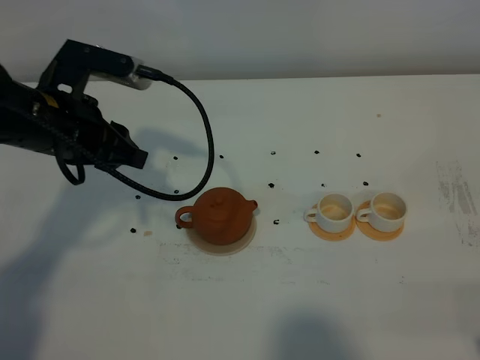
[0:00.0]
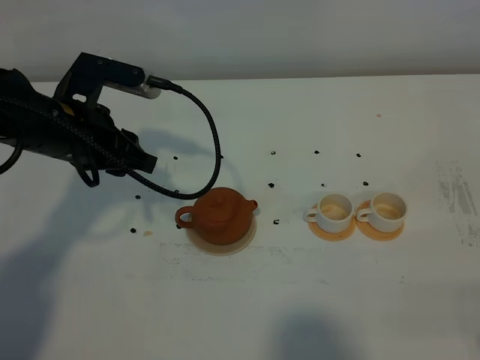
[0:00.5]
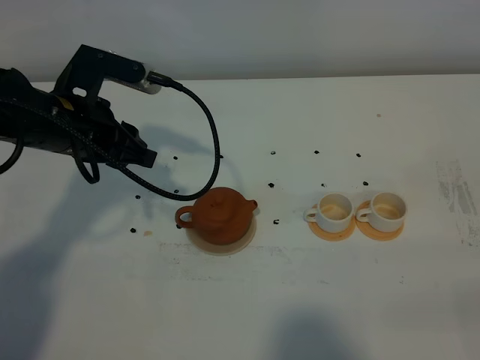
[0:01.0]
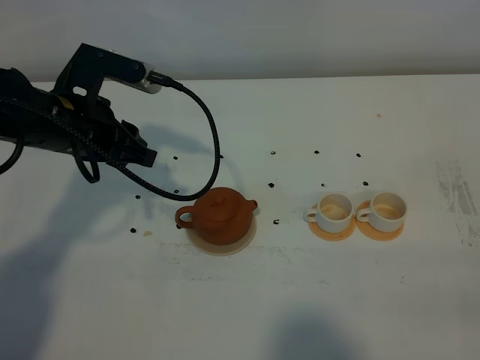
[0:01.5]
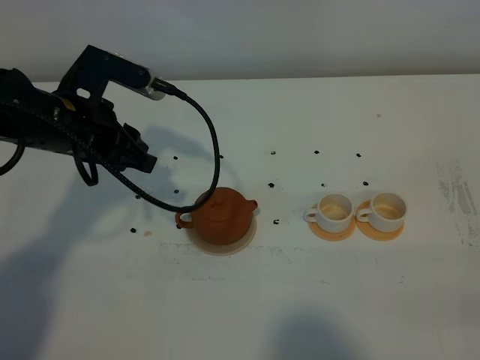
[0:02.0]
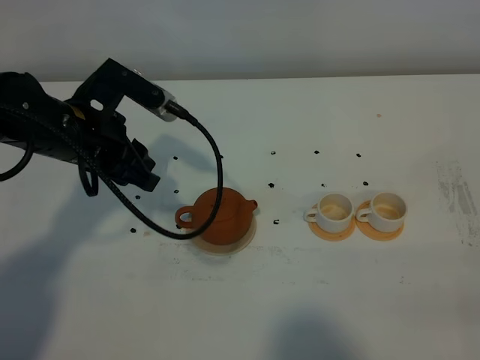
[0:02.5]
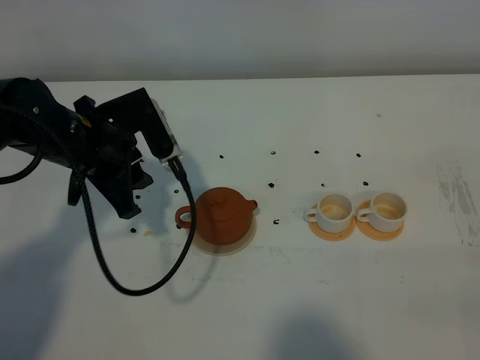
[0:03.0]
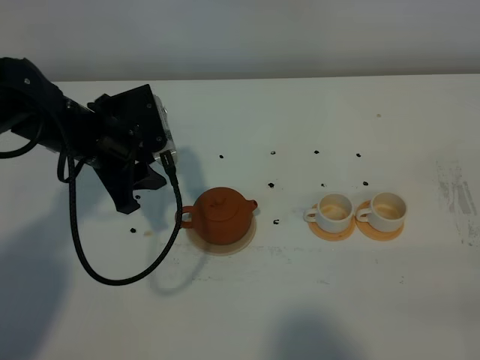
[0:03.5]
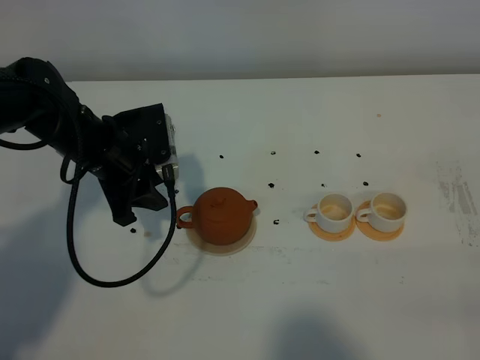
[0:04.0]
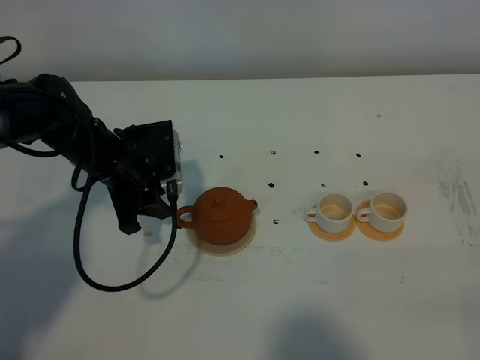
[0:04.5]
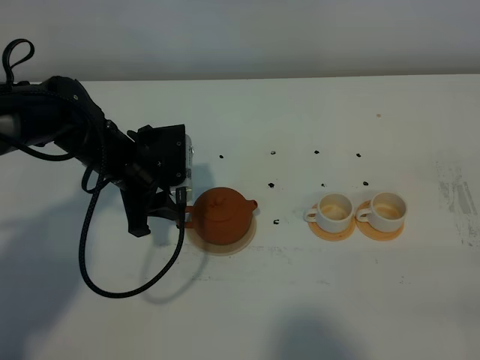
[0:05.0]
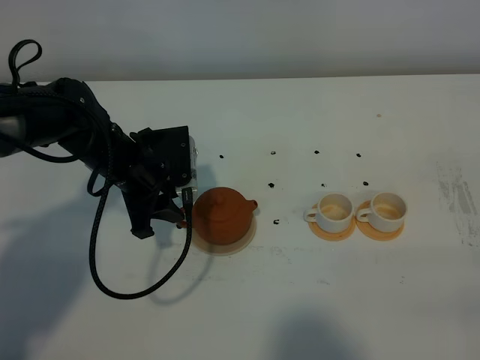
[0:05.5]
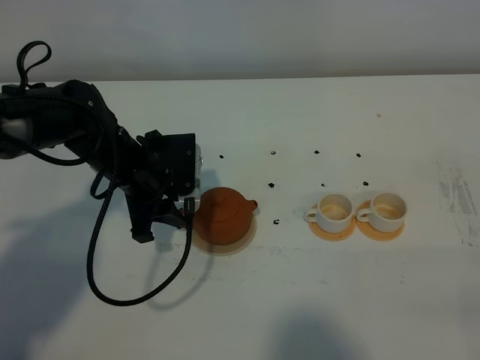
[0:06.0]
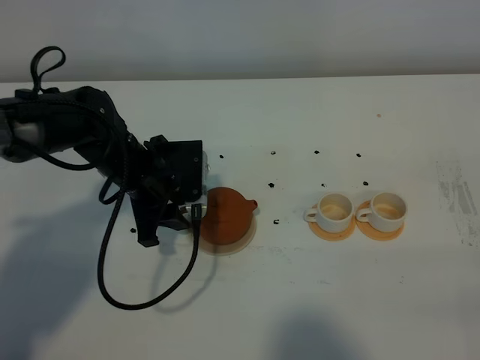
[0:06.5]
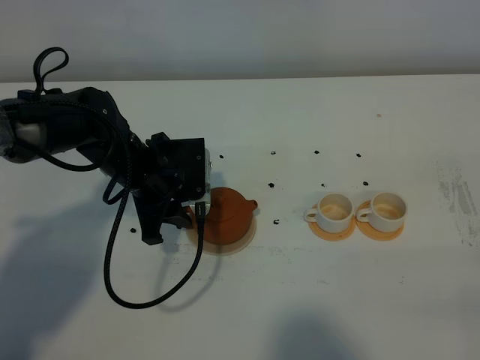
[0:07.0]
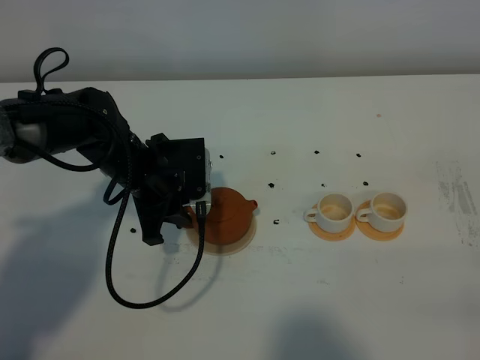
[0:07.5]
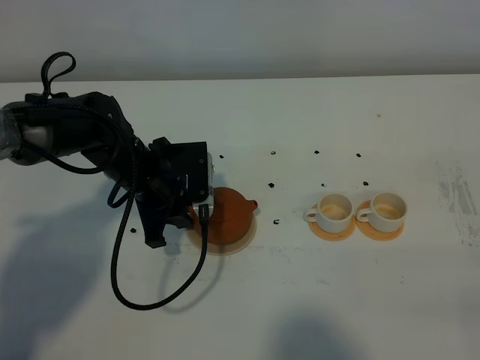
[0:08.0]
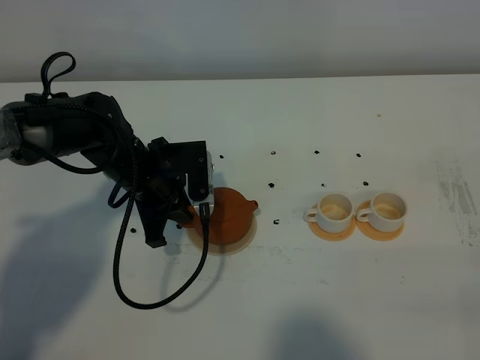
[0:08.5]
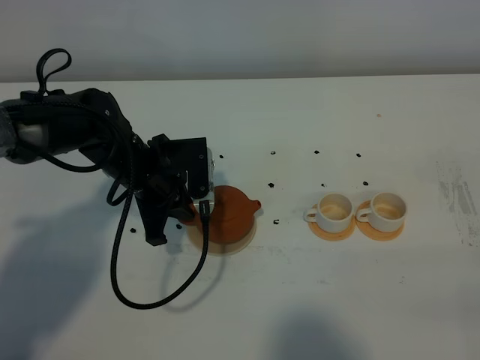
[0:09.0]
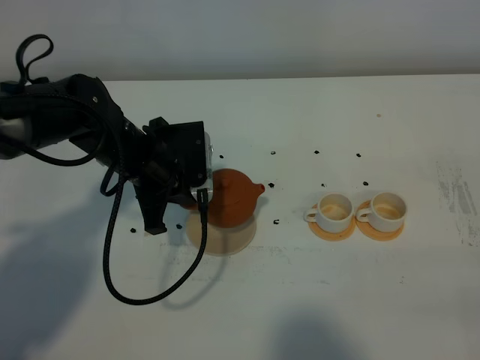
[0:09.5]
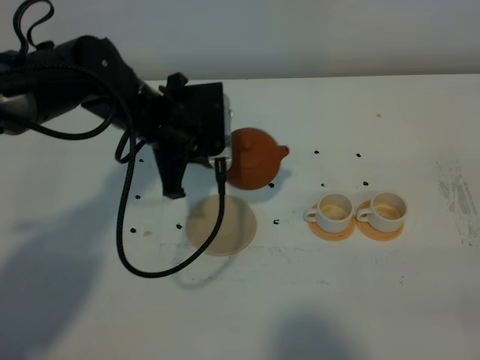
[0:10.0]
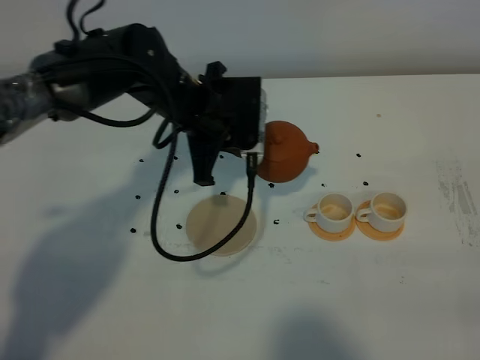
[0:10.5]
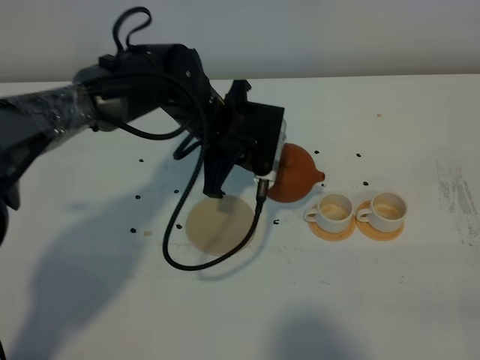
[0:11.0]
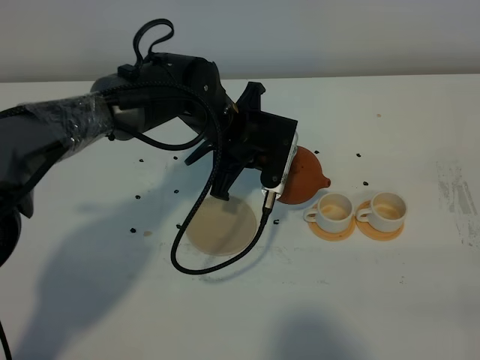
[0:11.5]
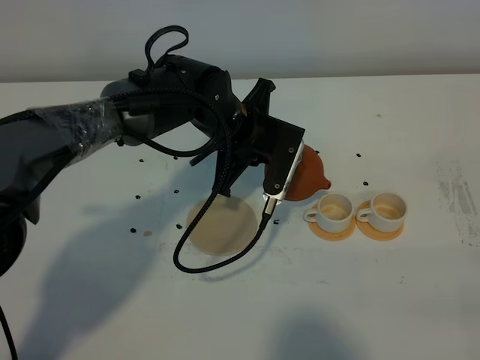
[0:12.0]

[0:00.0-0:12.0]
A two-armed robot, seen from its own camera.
Task of the whole recording: grasp the brown teapot and pour the tea into the two white teacups one by one, put the brown teapot back in its original place.
Step, 0:00.0 to 0:09.0: Pick up the teapot with the left gripper.
0:00.0 to 0:02.0: The right gripper closes its fingers.
0:02.0 to 0:04.0: The left gripper shifts roughly 5 cm downward.
0:04.0 to 0:06.0: There are only small adjustments of the grippers.
0:06.0 to 0:08.0: The left gripper closes up.
0:08.0 to 0:10.0: The left gripper moves upward, roughly 10 cm, and closes up.
0:10.0 to 0:12.0: The left gripper goes some 10 cm to the right.

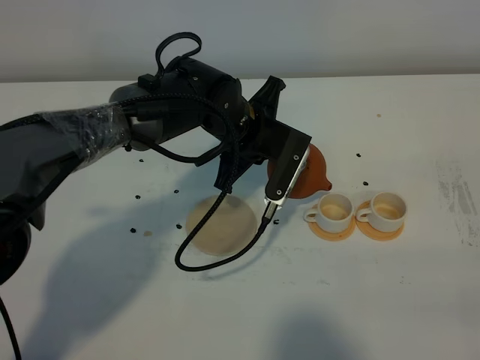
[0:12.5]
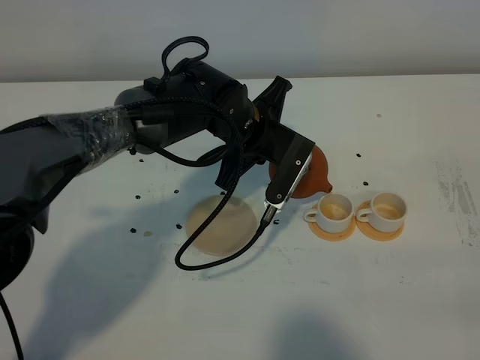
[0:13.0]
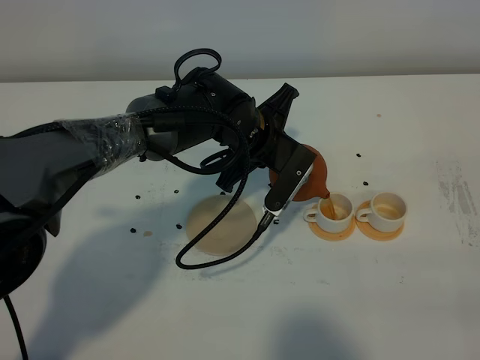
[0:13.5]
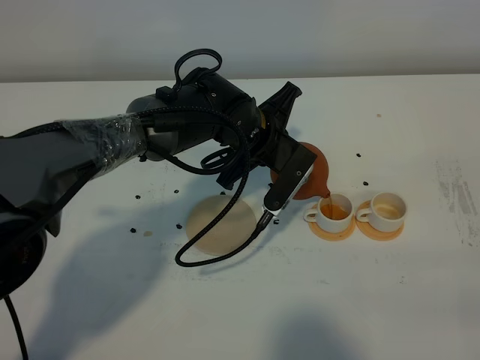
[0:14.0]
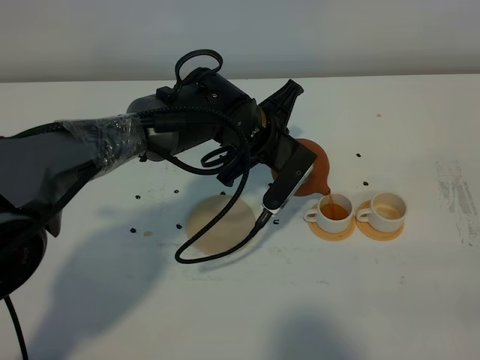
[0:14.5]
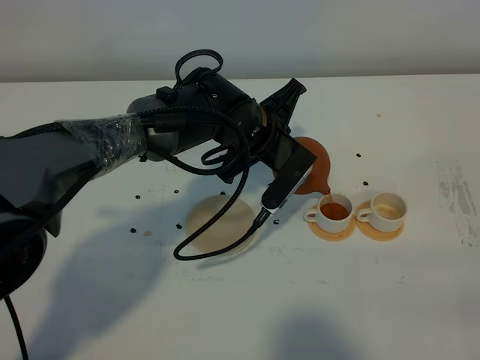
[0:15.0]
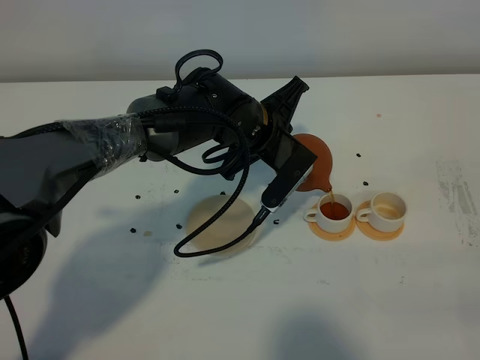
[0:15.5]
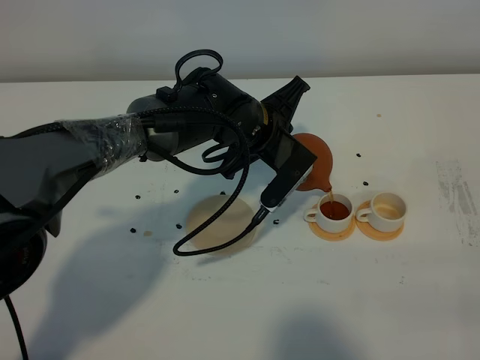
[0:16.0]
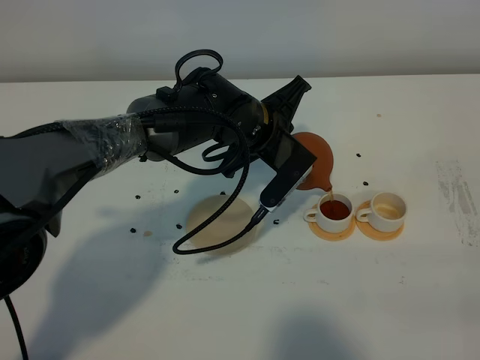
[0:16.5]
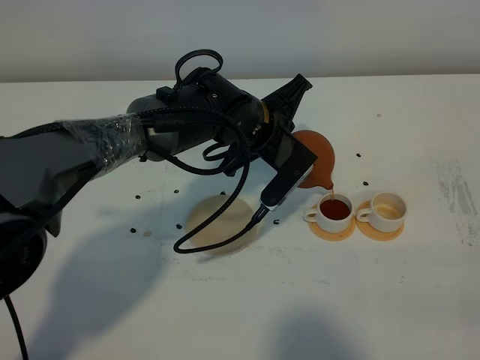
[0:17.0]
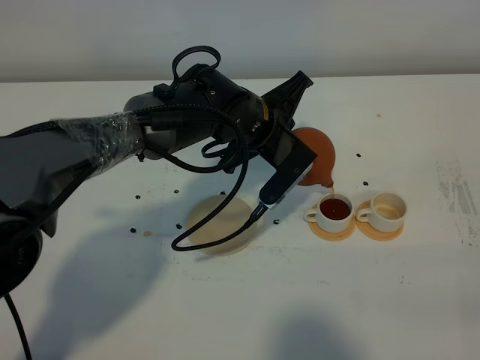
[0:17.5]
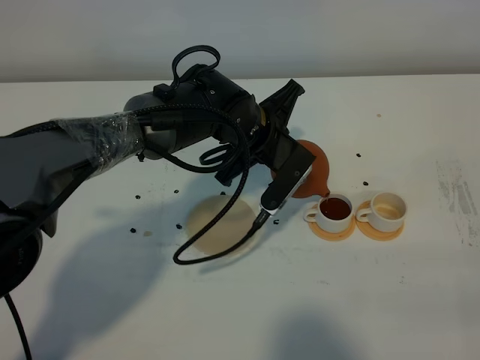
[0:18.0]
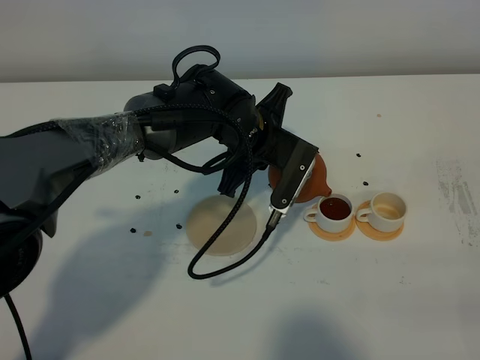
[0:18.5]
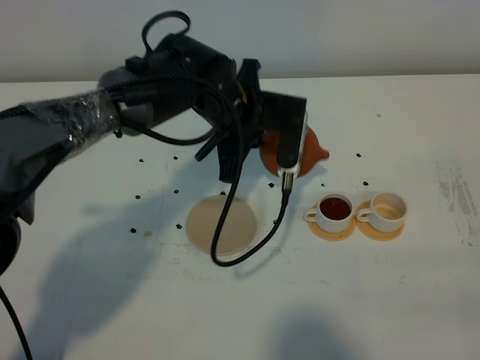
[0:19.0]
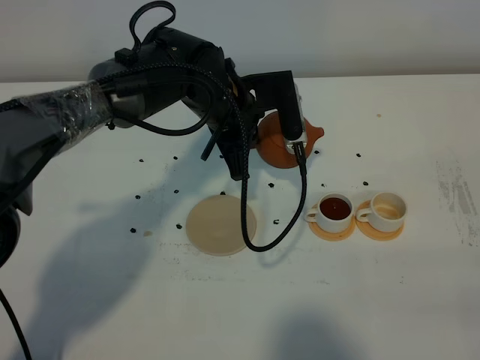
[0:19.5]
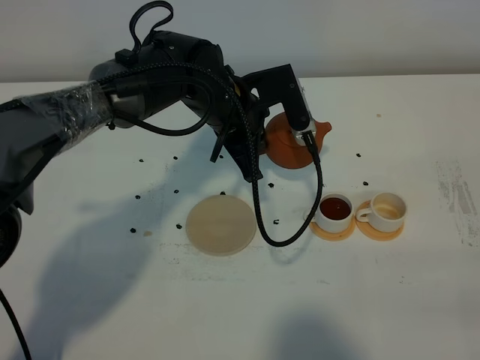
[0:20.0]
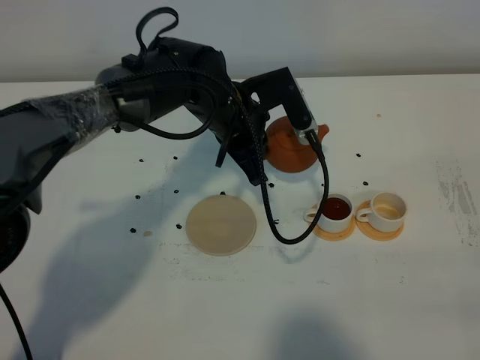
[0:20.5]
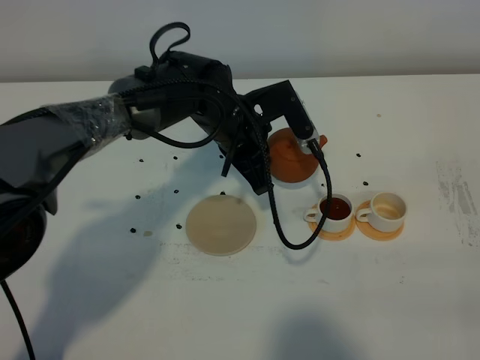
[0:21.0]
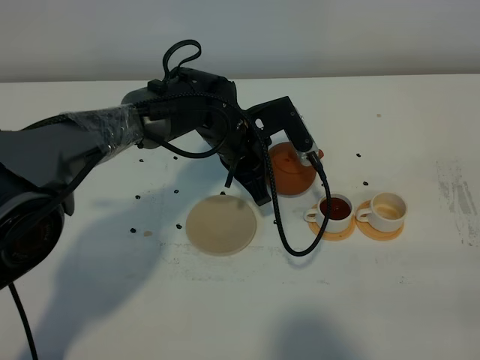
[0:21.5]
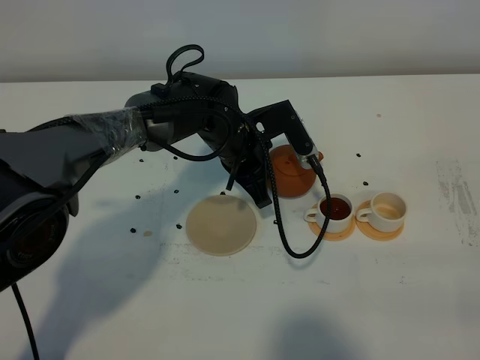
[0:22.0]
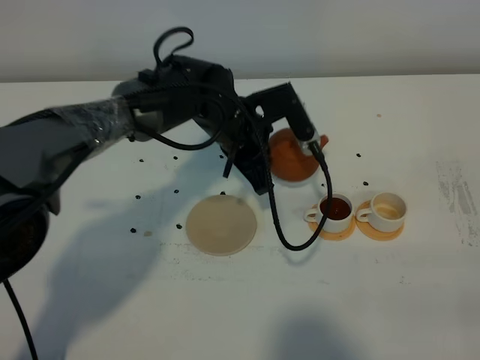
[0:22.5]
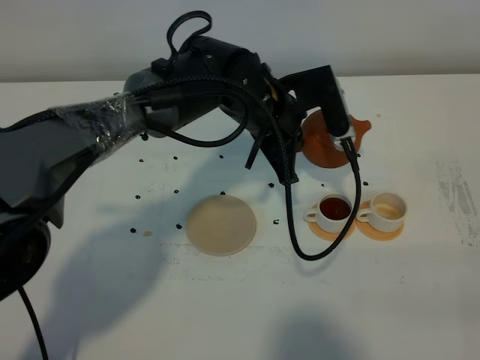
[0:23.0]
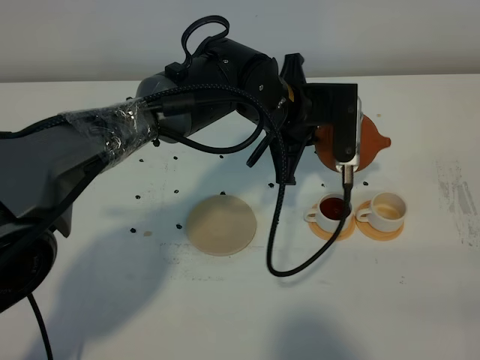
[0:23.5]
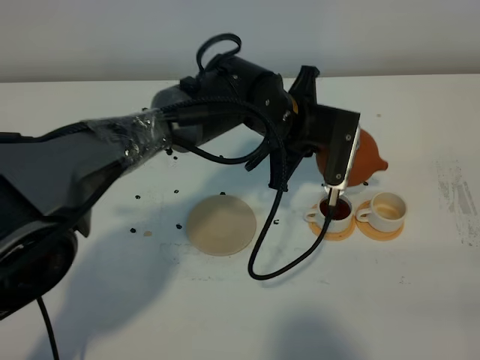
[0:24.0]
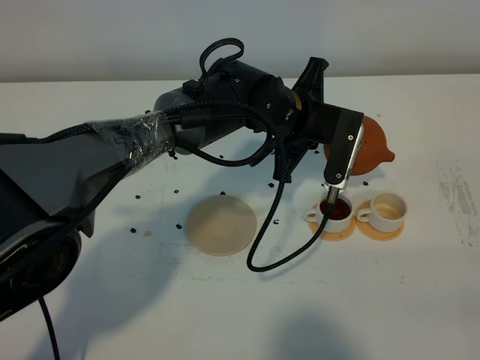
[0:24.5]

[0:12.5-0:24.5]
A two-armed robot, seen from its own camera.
Task of the whole recording: grasp the brown teapot and pour the tea into the two white teacups one by one, put the brown teapot back in its original place.
0:12.5 to 0:16.5: The grippers make only small movements.
0:16.5 to 0:18.5: The grippers move only a little.
0:20.5 to 0:22.5: The grippers move only a little.
0:22.5 to 0:24.5: The left gripper is displaced to the right by approximately 5 cm.

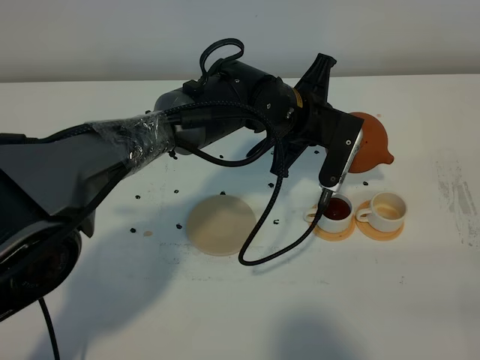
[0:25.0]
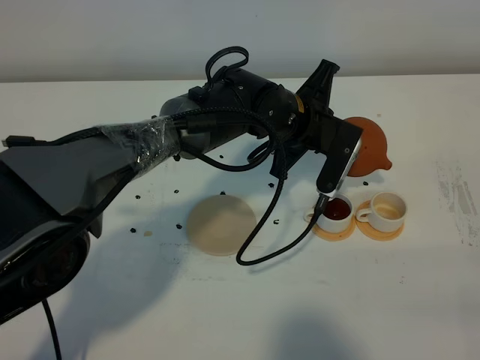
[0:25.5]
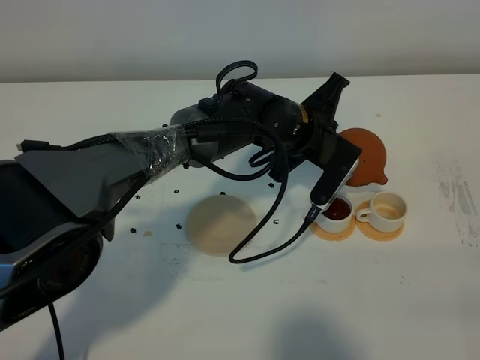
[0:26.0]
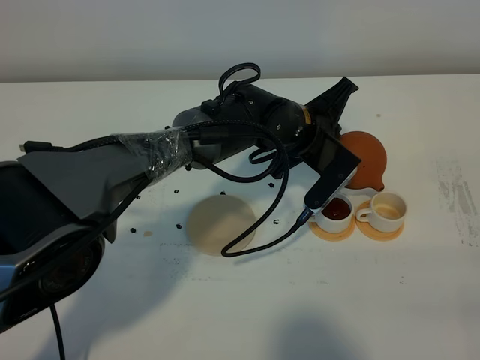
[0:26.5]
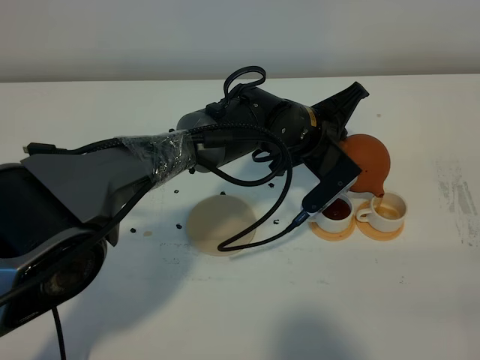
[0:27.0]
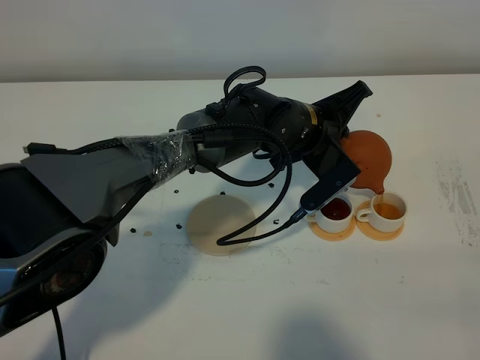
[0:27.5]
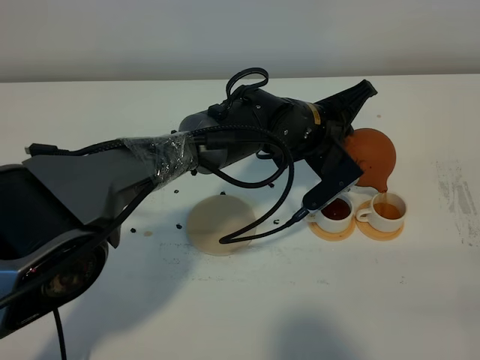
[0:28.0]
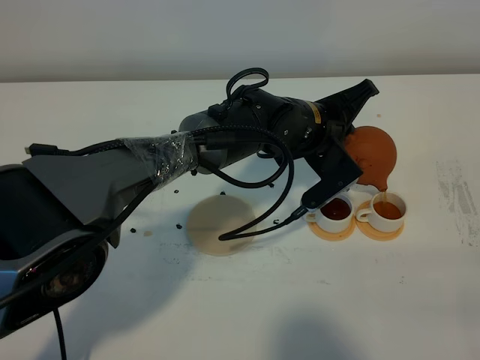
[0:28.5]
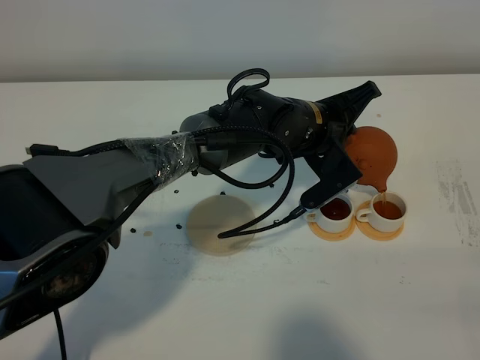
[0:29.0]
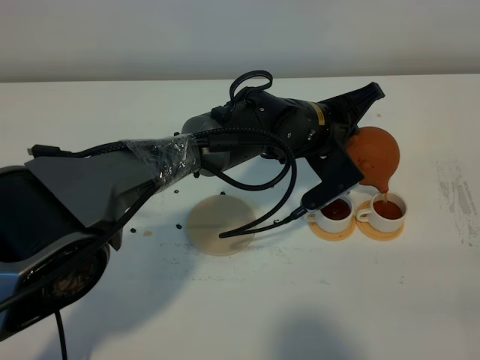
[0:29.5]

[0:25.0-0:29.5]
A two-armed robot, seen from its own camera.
Task of the whole recording: grasp the brown teapot and pour the tea into the two white teacups one by one, put the brown teapot back in its original place.
0:27.0 to 0:29.5: The grippers move only a little.
